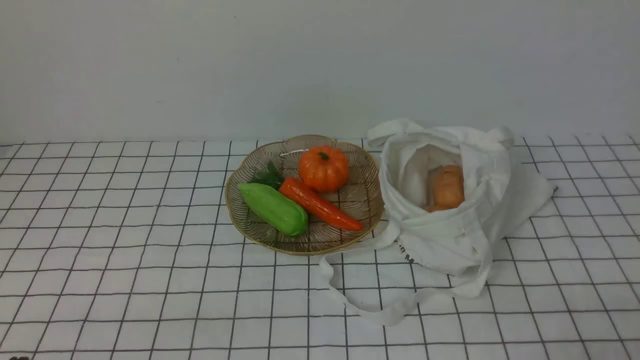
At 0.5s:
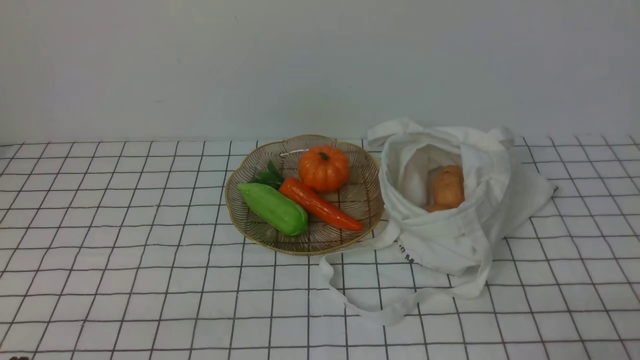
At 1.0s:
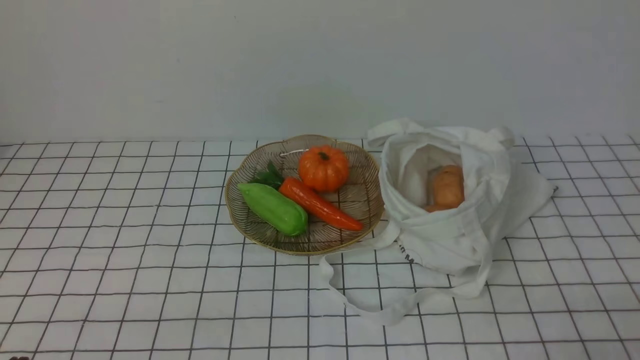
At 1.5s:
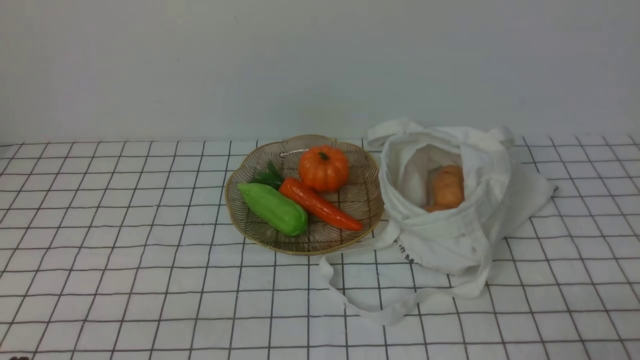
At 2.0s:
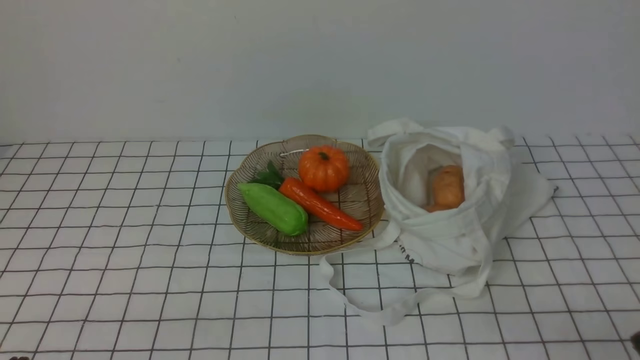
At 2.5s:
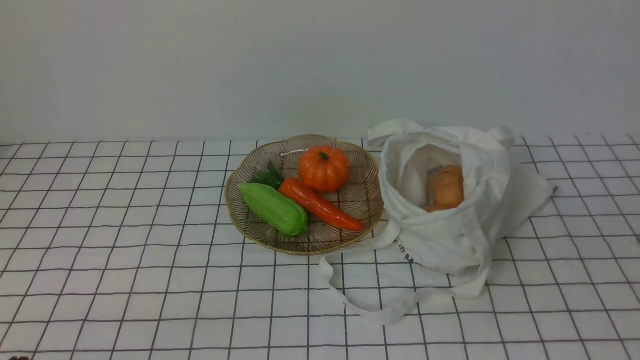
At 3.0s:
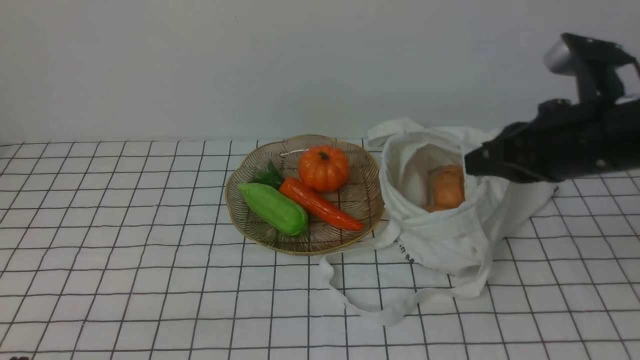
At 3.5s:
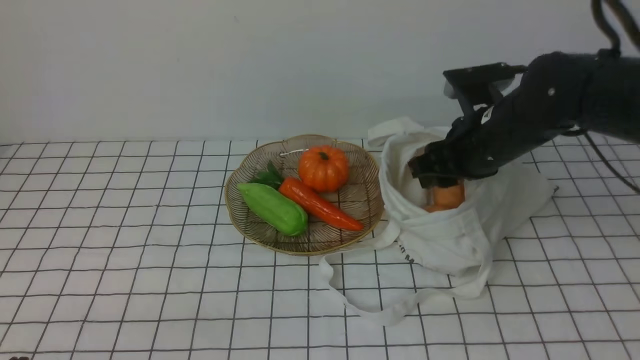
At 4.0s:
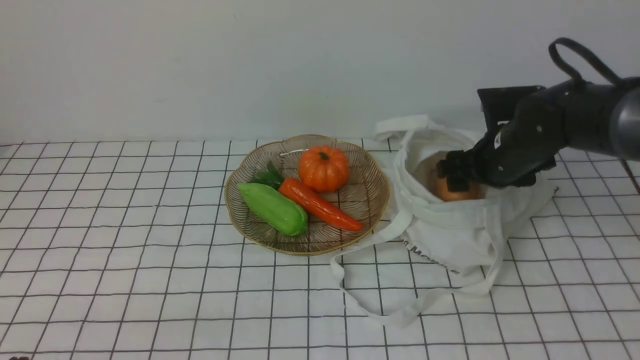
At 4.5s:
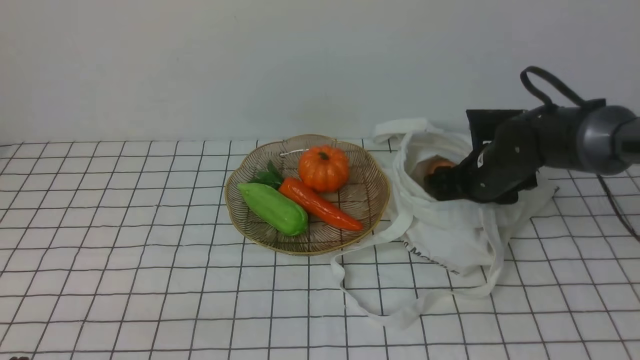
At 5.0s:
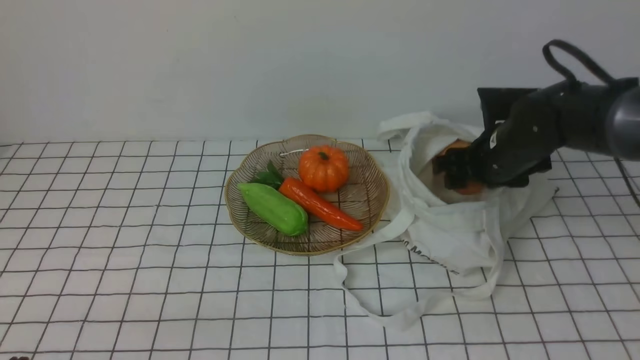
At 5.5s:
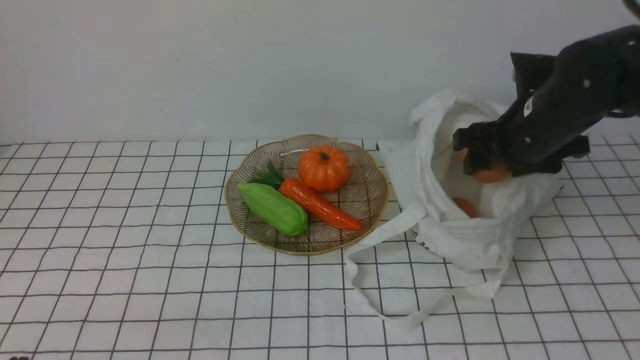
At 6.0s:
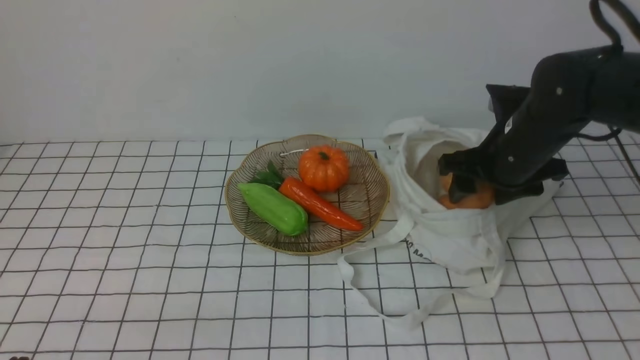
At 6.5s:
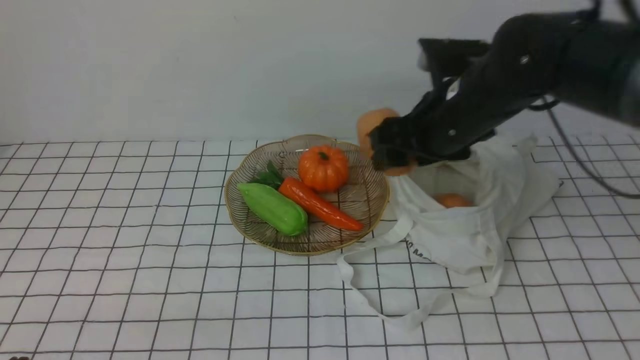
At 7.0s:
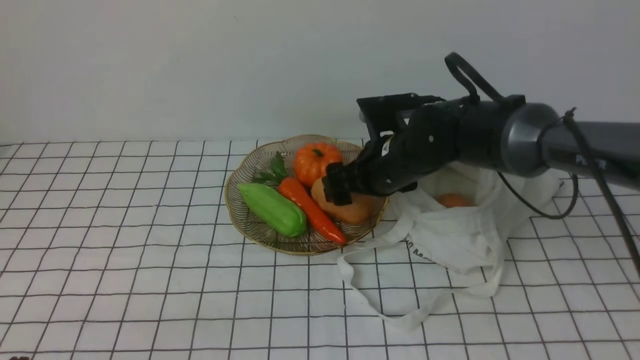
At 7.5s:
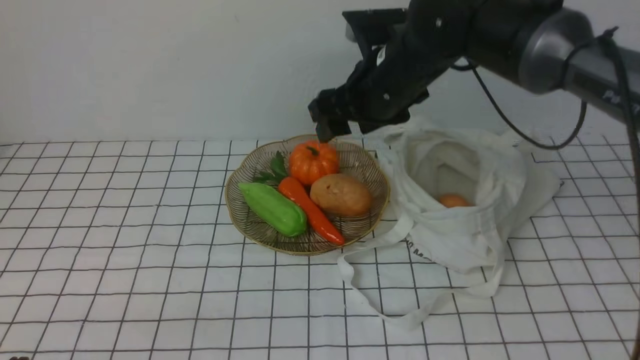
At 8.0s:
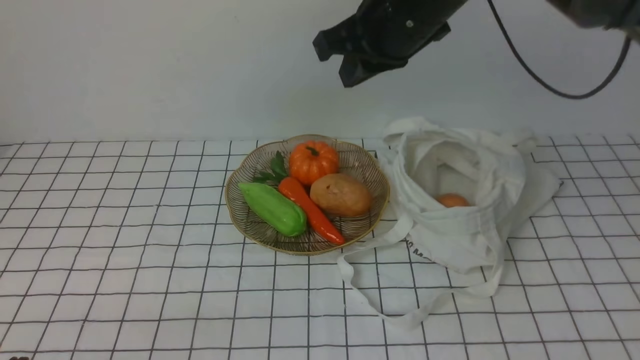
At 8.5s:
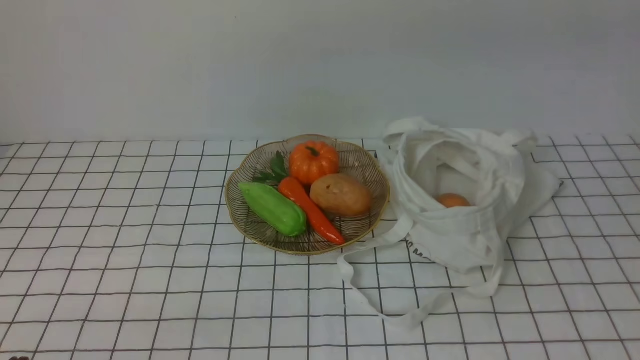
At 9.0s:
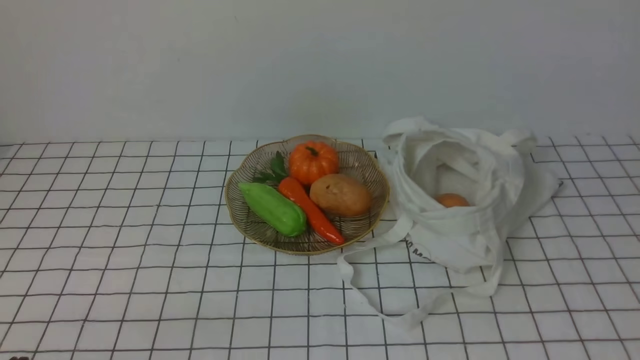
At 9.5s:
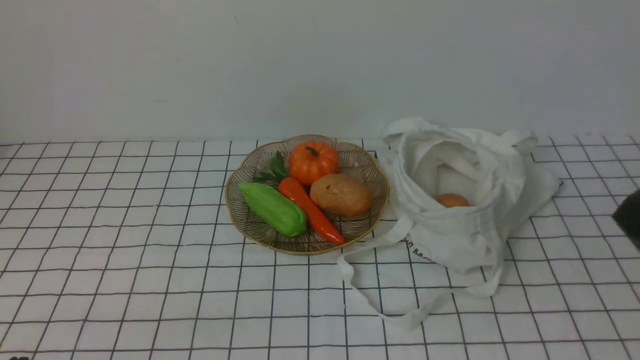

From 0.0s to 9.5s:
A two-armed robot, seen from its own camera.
Task of the whole recording: take vegetables from bag on white checkered tablecloth place on plate.
Step, from 0.0s to 4.5s: Grasp the potato with right gripper.
Step, from 5.0s to 7.0s: Place the potato on the plate with right gripper.
From 2.0s to 4.0s: The right gripper shifts roughly 35 cm forward, and opens up.
From 4.0s to 5.5s: The right gripper shifts about 5 cm upward.
From 5.5s to 7.5s: The right gripper shifts approximately 15 cm to the left.
From 7.5s to 9.5s: The right gripper moves backward and to the right, some 35 cm, and closes its fingers.

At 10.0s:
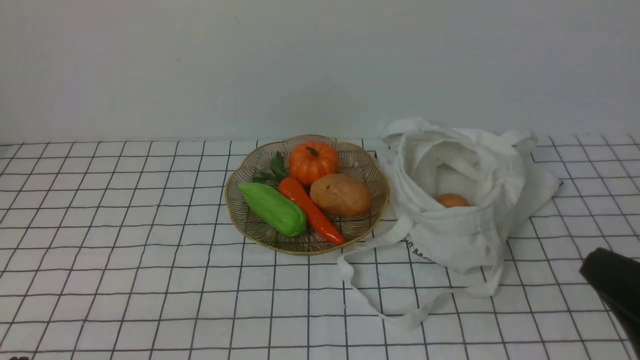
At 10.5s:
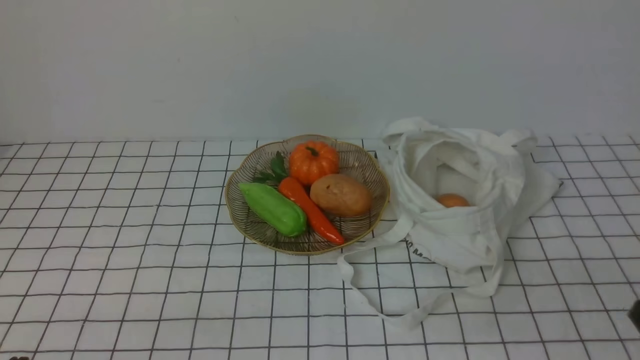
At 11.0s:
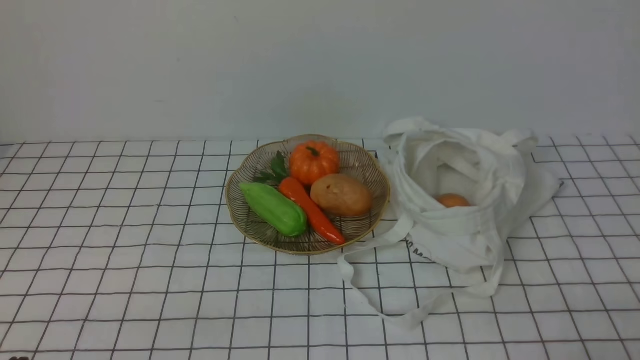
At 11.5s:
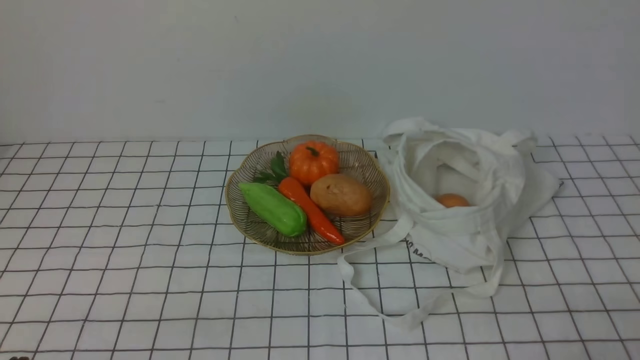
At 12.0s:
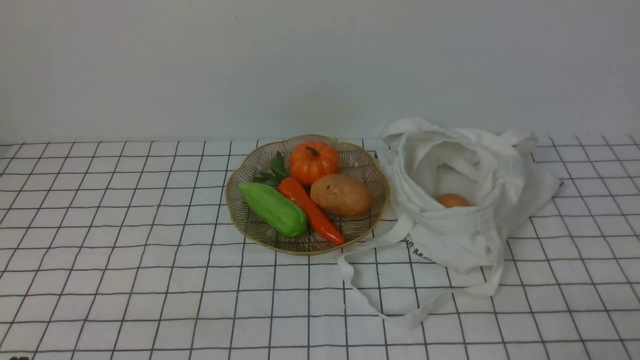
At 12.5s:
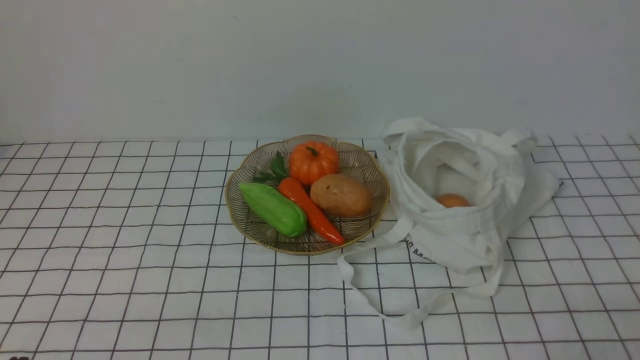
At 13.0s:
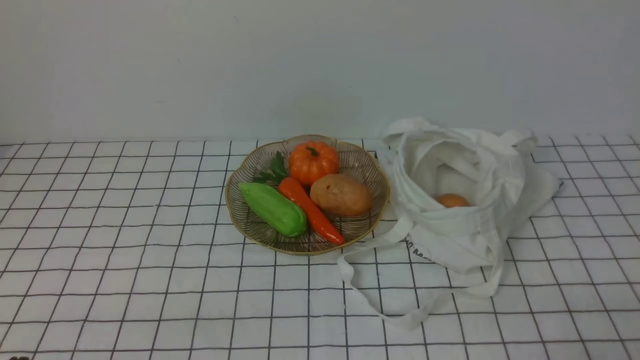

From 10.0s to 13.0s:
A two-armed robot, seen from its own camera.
Task of the whole recording: take vegetables from bag on white checkered tablecloth place on plate.
From 10.0s to 11.5s: The right gripper is displaced downward by roughly 10 cm.
From 11.5s to 13.0s: Neither gripper changes place.
